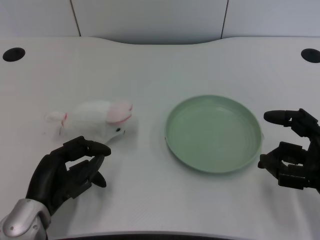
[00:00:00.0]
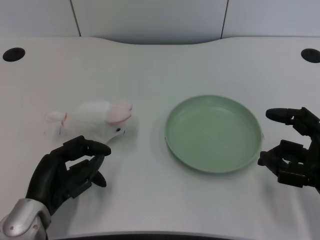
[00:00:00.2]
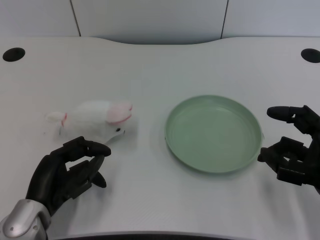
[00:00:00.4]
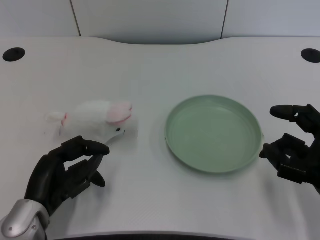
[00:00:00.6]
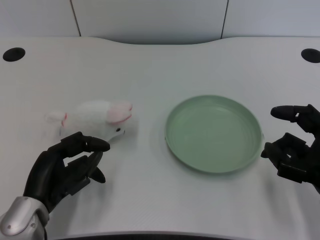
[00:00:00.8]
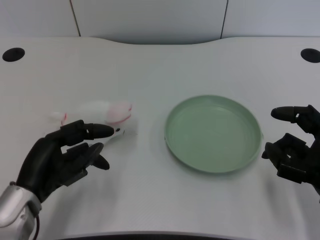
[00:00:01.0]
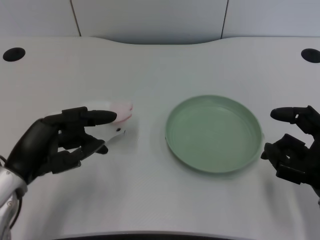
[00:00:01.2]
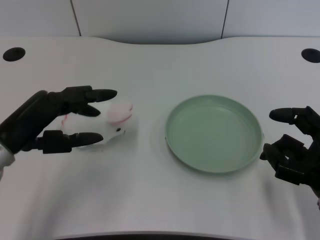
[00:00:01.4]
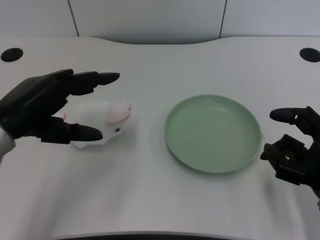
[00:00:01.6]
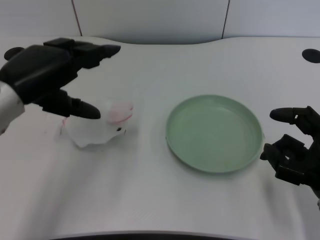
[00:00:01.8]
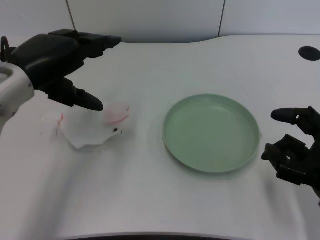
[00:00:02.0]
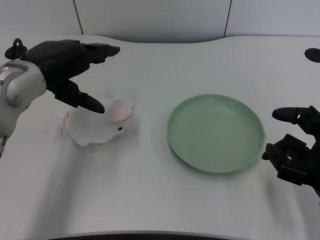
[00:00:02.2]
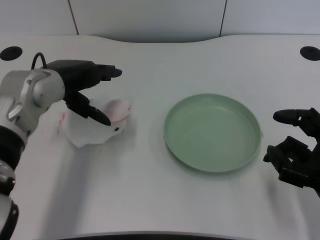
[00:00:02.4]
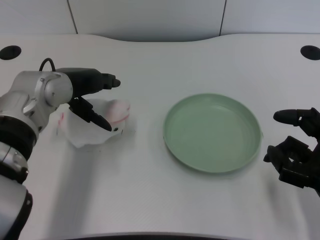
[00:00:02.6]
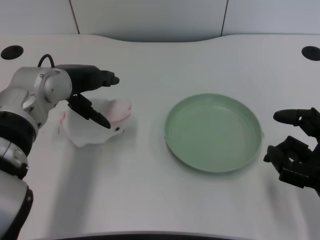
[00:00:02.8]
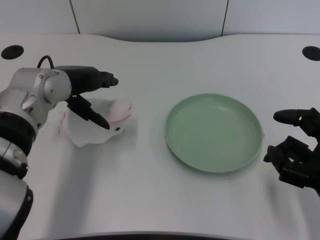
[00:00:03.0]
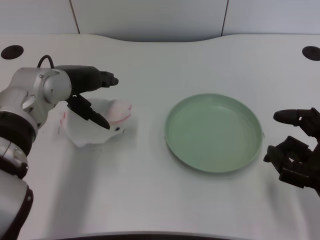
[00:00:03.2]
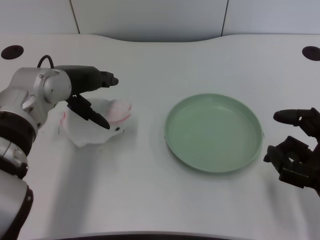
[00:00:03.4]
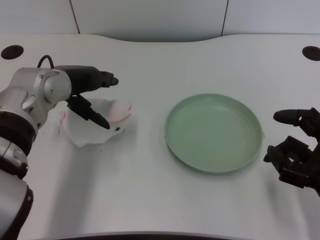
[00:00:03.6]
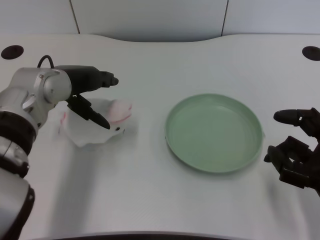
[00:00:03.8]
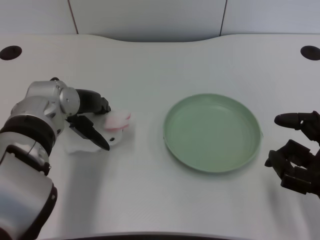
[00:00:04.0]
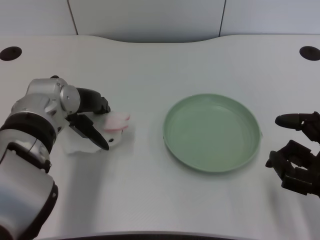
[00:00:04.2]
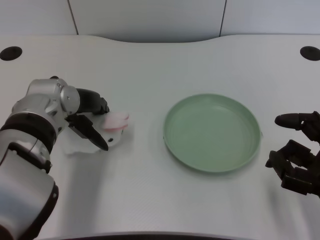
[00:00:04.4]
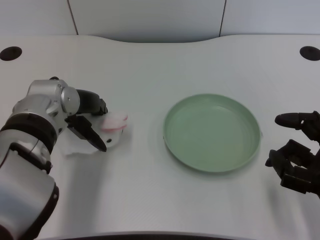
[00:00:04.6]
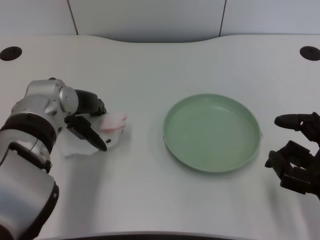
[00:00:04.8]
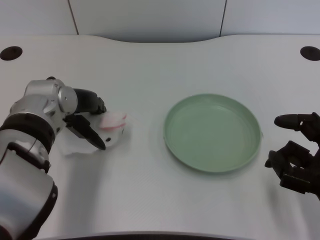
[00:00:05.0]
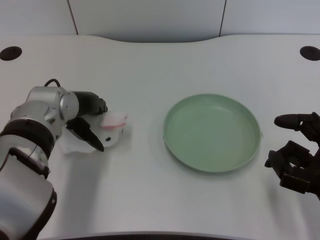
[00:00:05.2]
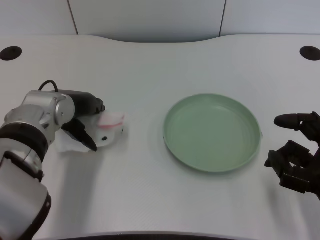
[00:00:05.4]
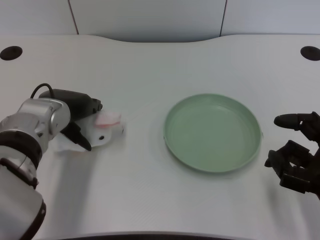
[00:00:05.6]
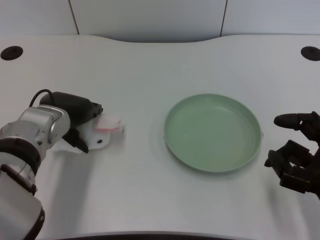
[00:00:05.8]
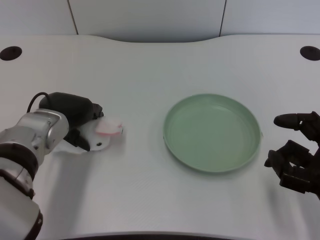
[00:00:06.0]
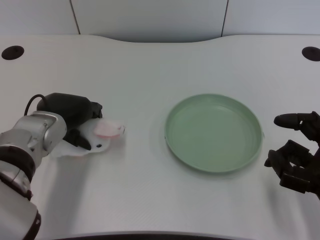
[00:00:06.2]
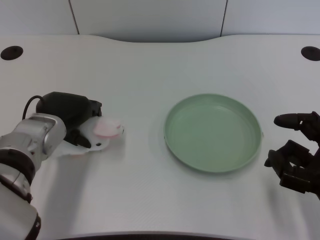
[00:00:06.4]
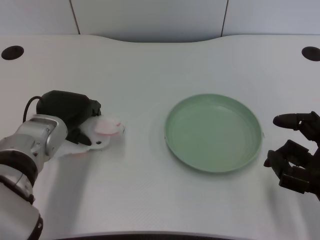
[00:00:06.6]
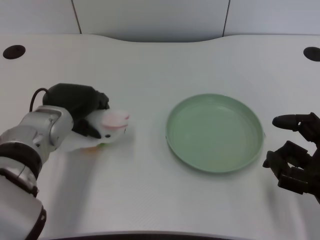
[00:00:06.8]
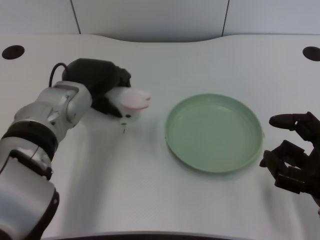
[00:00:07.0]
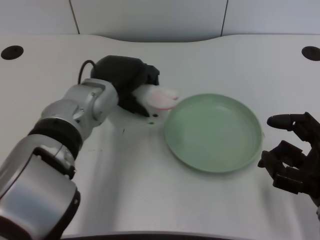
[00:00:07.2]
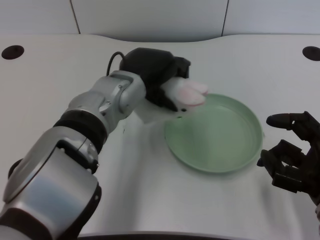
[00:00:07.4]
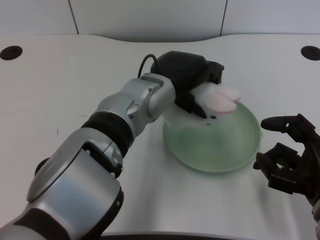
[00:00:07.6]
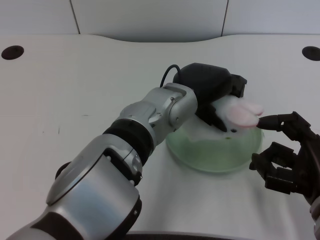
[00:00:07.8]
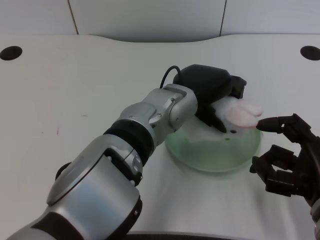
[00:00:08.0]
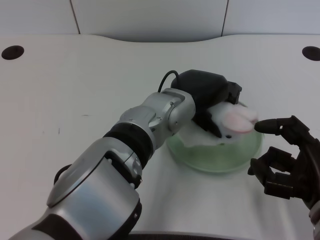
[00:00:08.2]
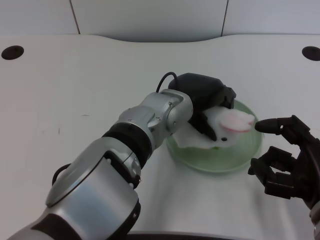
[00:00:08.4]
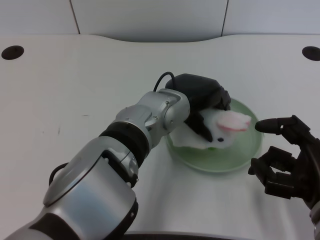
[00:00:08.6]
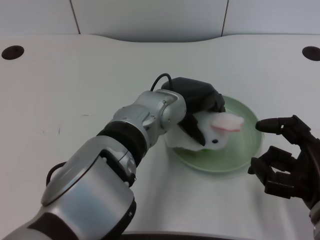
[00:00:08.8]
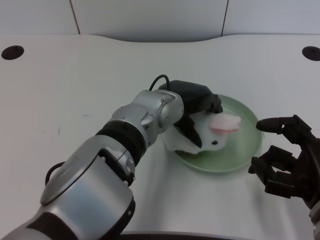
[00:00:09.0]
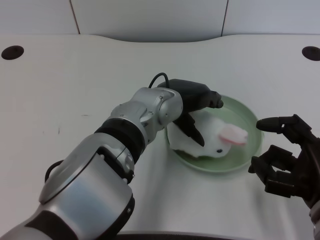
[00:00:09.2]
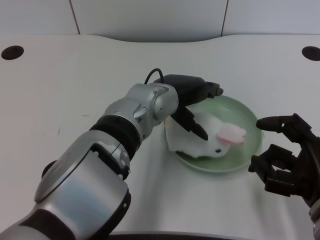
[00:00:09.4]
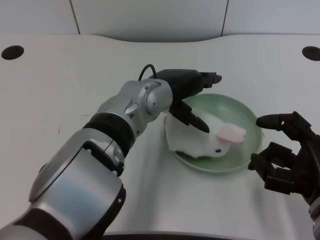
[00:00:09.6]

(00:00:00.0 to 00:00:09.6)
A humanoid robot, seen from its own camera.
Task of the whole recording: pick up the rabbit doll from the table and place it on the plate.
Step, 00:00:01.0 - 00:00:06.8: Grasp the rabbit doll with the left gripper.
Step, 00:00:07.0 - 00:00:09.4: Place the rabbit doll into the plate with the left gripper.
00:00:01.6 - 00:00:03.2: The left hand is displaced forward and to the right by roughly 15 cm.
00:00:04.8 - 00:00:06.4: The left hand shifts some 5 cm downward.
00:00:06.4 - 00:00:08.0: The left hand goes about 20 cm to the right.

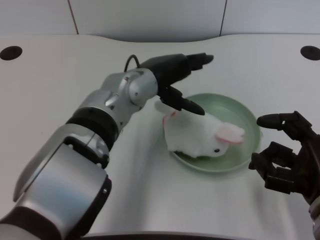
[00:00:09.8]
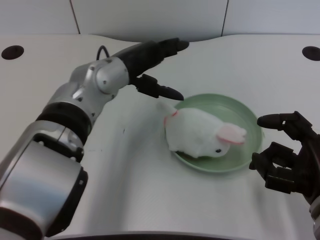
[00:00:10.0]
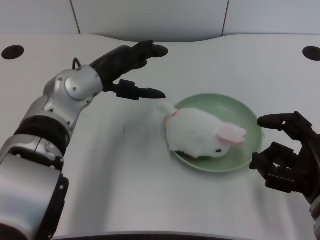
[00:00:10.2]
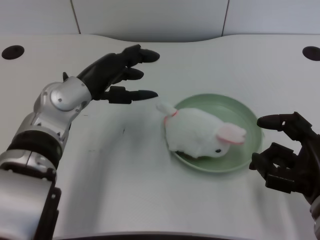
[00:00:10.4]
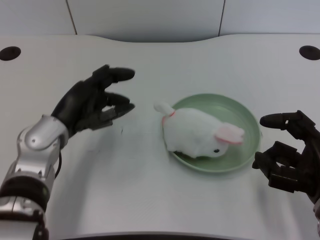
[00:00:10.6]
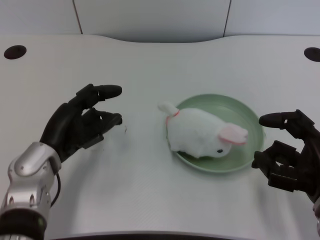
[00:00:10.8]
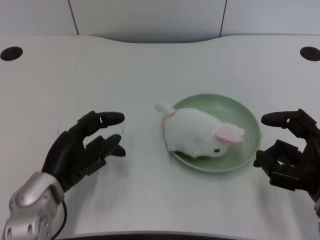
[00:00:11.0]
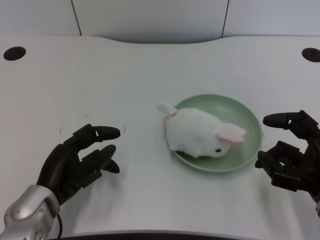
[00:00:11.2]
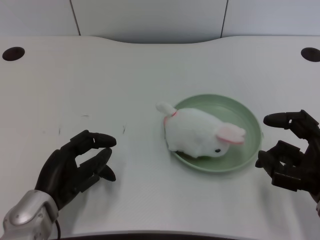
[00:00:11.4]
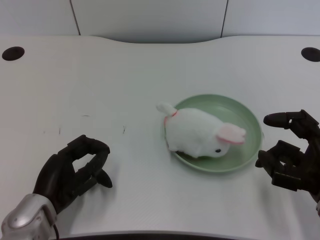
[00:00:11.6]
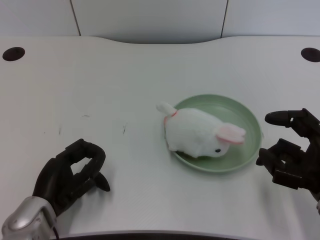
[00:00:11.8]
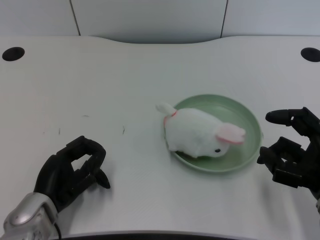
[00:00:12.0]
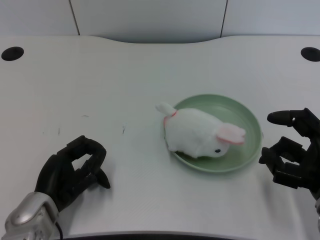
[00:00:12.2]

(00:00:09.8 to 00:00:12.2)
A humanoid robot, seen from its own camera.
Task of the whole recording: pick up the rabbit doll from the table and place it on the plate.
00:00:09.8 - 00:00:11.0: The left hand goes about 20 cm to the left, downward and backward.
00:00:11.0 - 00:00:12.2: There are only small adjustments of the hands.

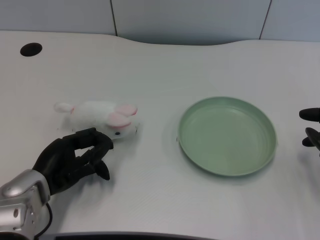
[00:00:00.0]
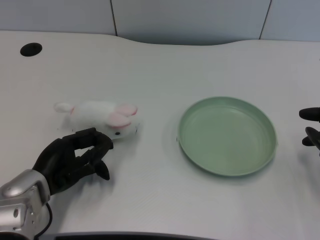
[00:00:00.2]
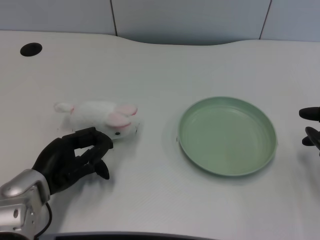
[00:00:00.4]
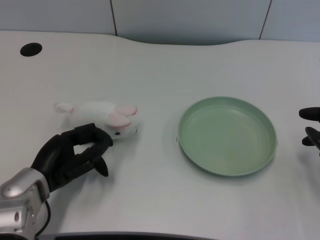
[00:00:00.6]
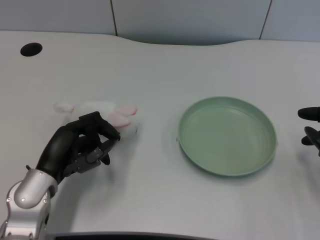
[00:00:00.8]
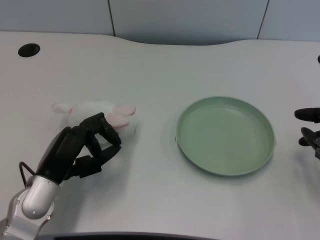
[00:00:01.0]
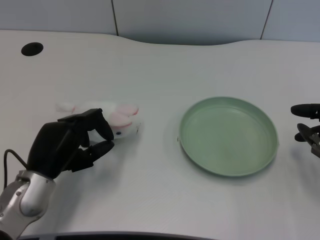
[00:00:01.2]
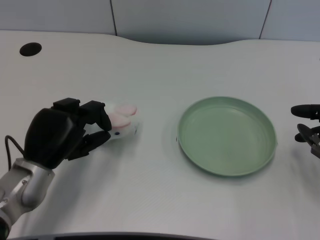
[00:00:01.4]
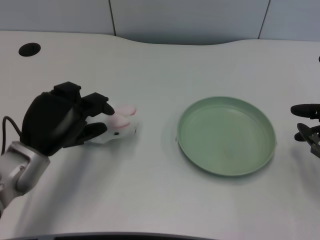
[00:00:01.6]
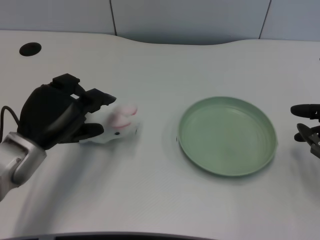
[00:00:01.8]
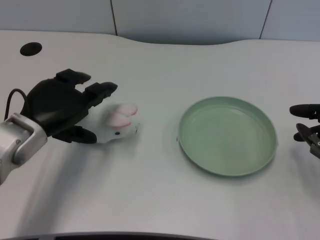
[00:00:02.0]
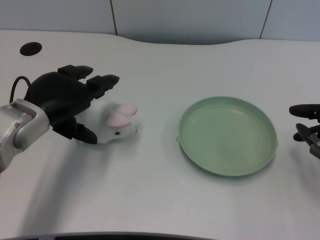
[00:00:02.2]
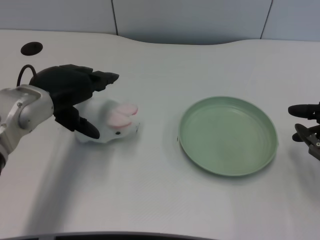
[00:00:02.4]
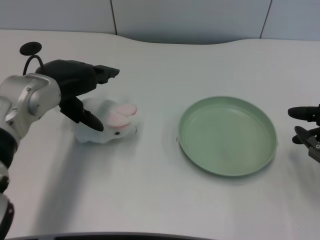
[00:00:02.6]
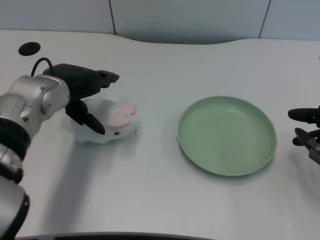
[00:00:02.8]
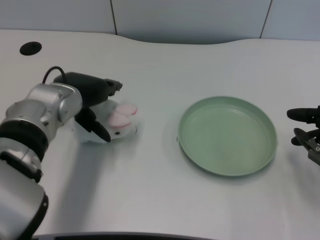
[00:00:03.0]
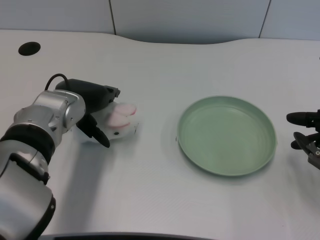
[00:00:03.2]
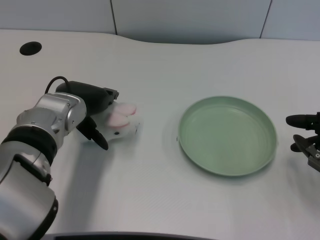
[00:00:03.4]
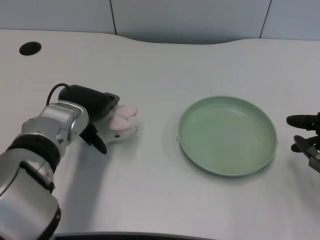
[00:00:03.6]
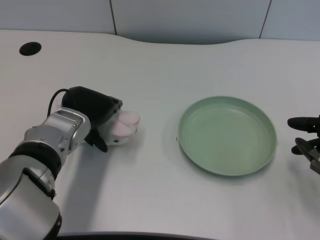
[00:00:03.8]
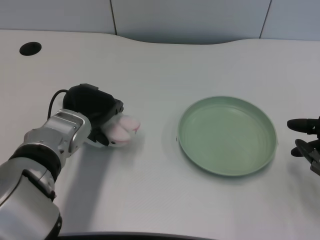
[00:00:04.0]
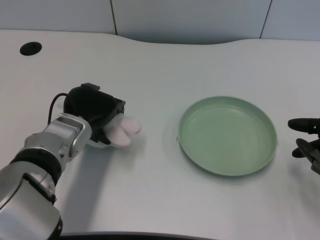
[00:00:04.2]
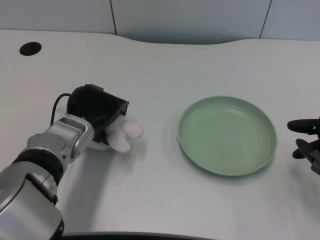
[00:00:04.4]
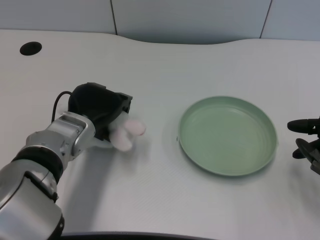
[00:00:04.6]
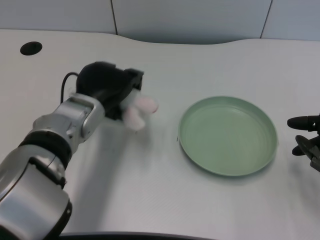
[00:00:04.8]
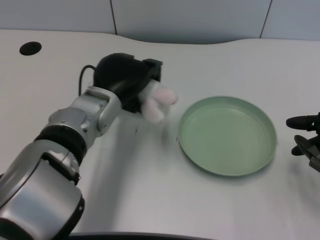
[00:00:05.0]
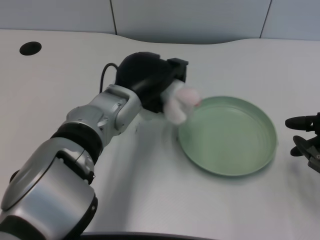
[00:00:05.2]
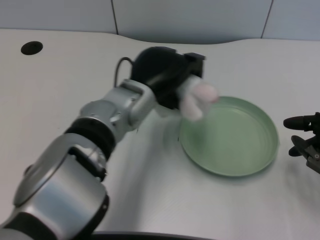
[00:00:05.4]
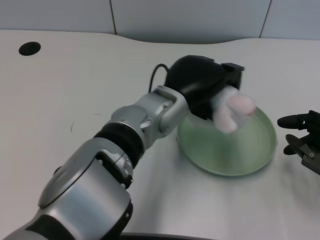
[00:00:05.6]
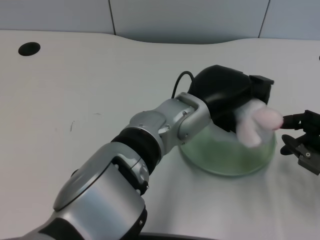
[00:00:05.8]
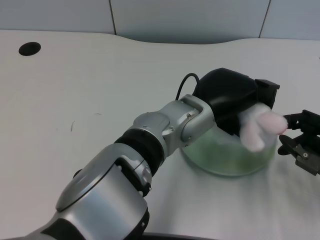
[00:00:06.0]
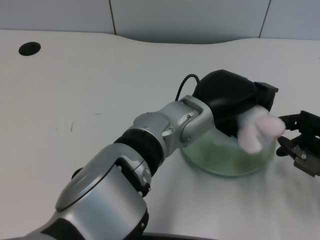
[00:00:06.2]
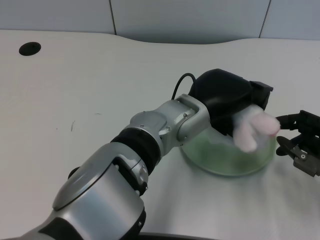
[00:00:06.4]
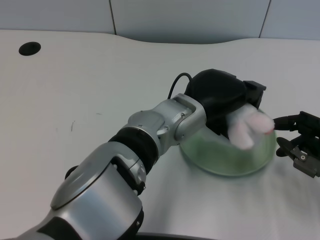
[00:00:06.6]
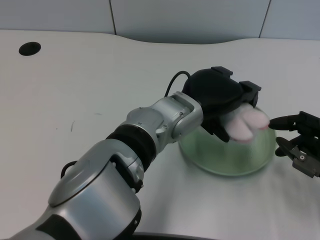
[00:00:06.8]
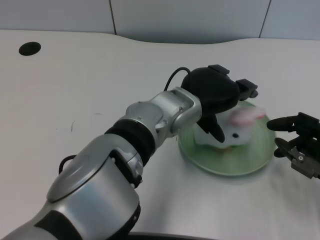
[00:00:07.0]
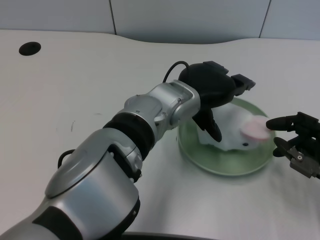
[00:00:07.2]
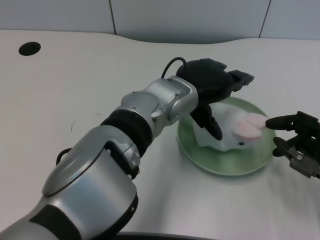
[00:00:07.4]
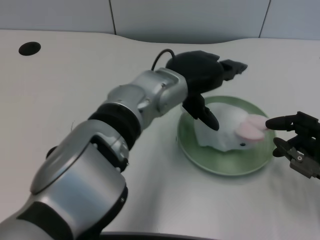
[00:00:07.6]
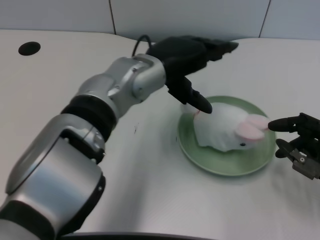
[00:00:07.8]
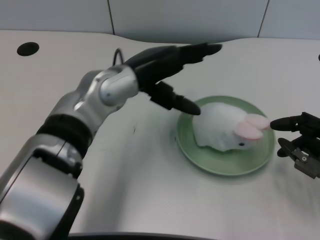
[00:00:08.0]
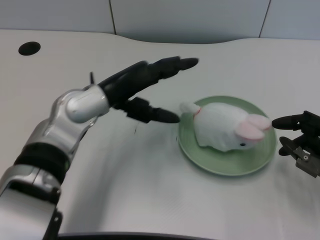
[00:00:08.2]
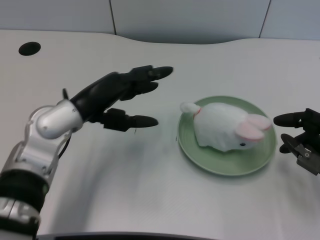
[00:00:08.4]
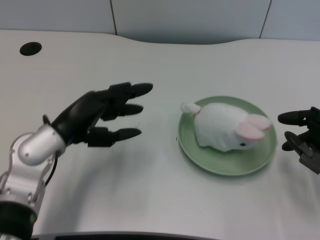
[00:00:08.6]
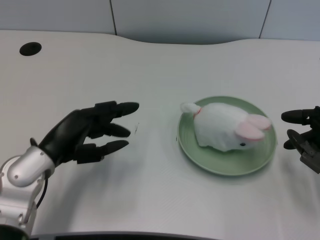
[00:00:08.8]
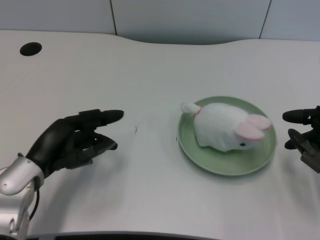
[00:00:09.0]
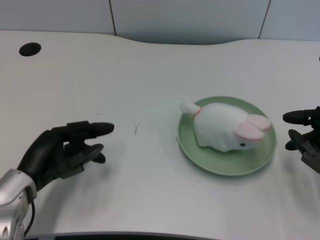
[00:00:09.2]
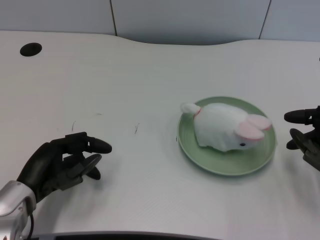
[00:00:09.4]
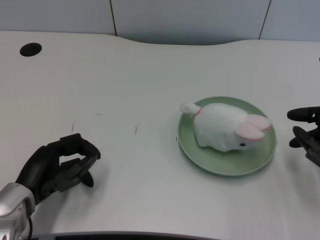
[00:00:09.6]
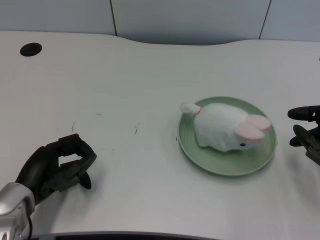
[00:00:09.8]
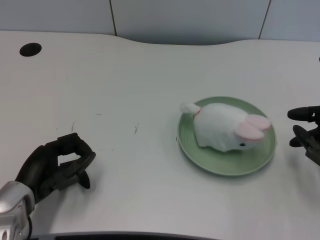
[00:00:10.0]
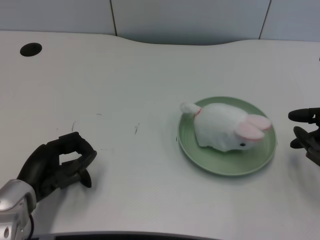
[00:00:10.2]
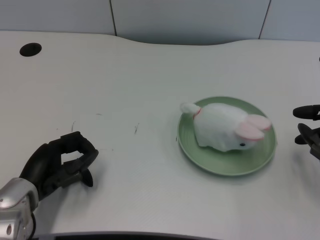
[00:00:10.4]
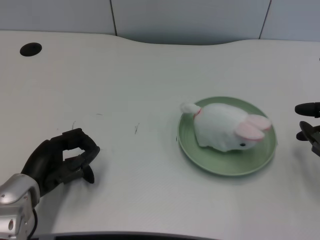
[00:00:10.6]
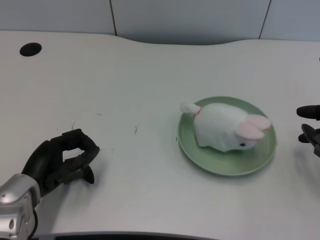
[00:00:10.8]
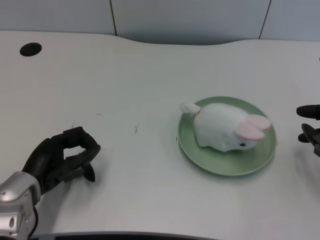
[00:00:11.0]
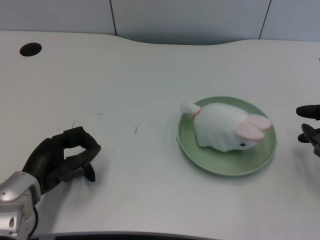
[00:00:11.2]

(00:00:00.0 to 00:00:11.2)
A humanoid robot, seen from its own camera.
Task of the whole recording: pick up the rabbit doll from the table and place it on the plate.
Step, 00:00:00.8 - 00:00:04.2: Grasp the rabbit doll with the left gripper.
Step, 00:00:04.4 - 00:00:07.2: Place the rabbit doll into the plate with the left gripper.
00:00:01.6 - 00:00:03.2: The left hand travels forward and to the right by some 10 cm.
00:00:04.8 - 00:00:06.4: The left hand goes approximately 15 cm to the right.
00:00:06.4 - 00:00:08.0: The left hand is displaced to the left by approximately 10 cm.
00:00:08.0 - 00:00:09.6: The left hand goes some 25 cm to the left, downward and backward.
00:00:09.6 - 00:00:11.2: There are only small adjustments of the hands.
